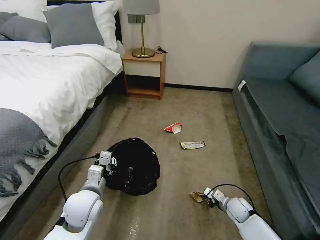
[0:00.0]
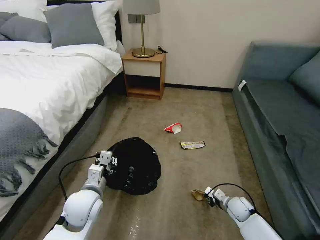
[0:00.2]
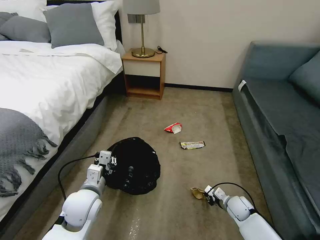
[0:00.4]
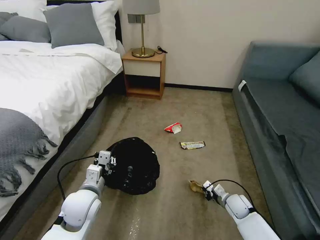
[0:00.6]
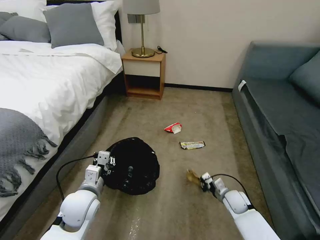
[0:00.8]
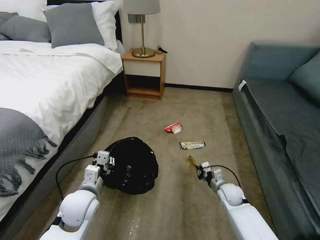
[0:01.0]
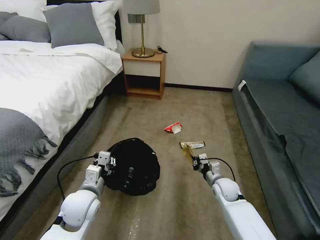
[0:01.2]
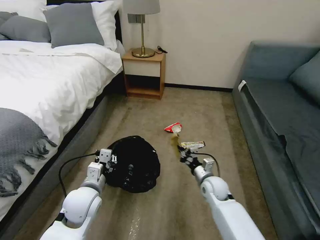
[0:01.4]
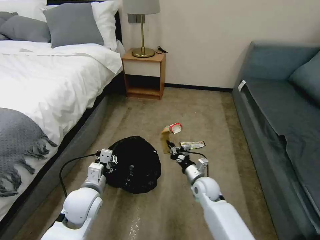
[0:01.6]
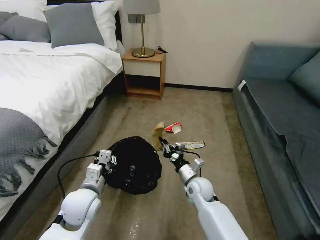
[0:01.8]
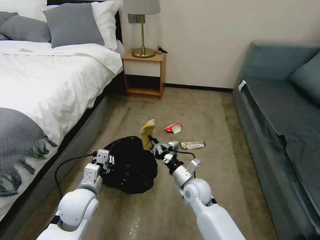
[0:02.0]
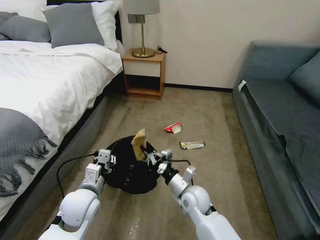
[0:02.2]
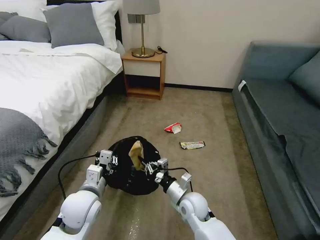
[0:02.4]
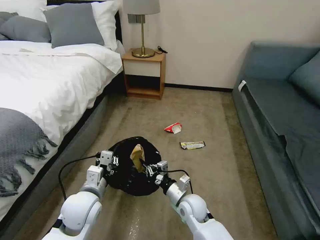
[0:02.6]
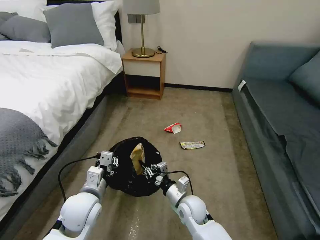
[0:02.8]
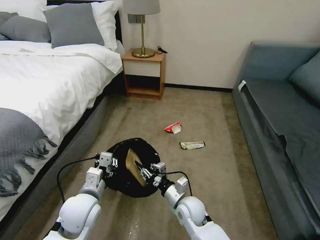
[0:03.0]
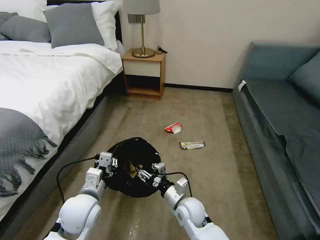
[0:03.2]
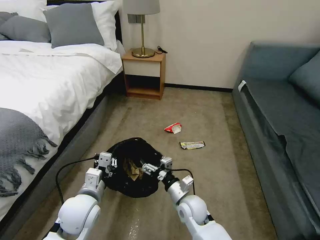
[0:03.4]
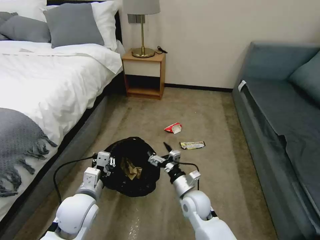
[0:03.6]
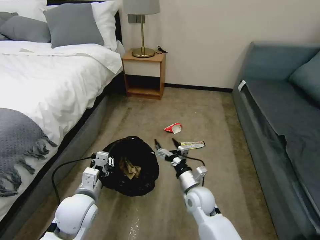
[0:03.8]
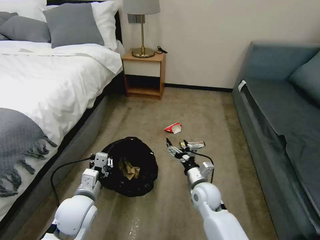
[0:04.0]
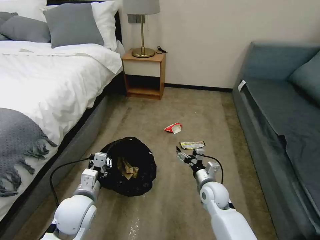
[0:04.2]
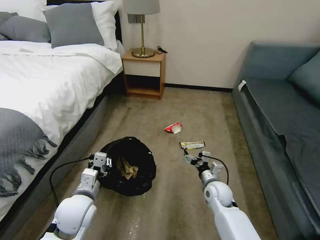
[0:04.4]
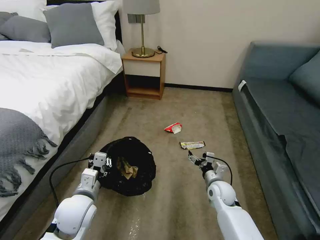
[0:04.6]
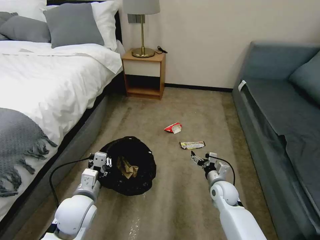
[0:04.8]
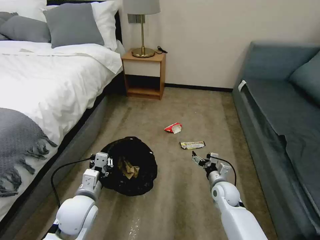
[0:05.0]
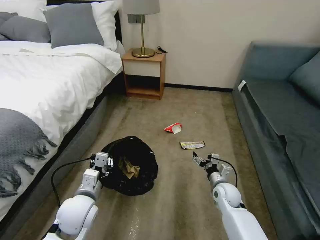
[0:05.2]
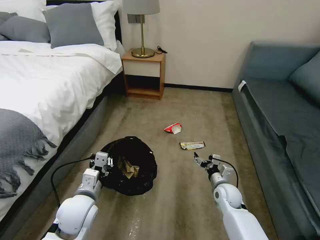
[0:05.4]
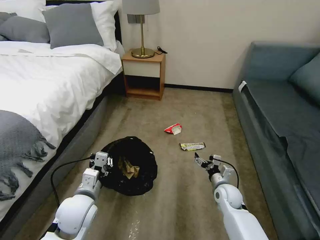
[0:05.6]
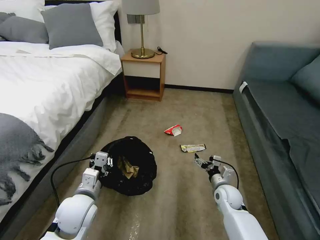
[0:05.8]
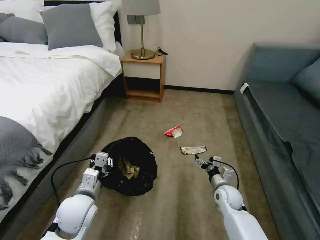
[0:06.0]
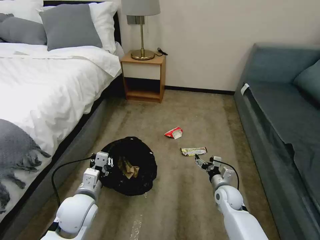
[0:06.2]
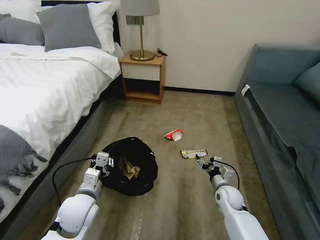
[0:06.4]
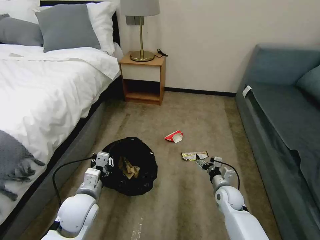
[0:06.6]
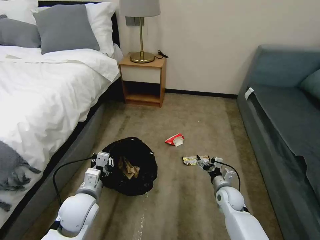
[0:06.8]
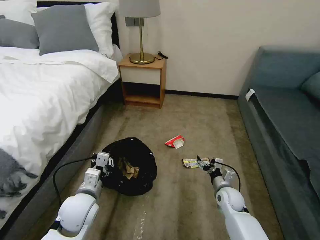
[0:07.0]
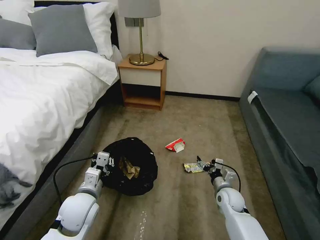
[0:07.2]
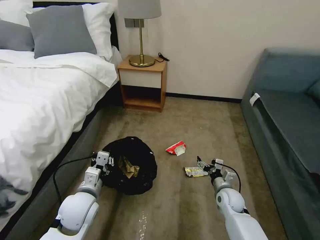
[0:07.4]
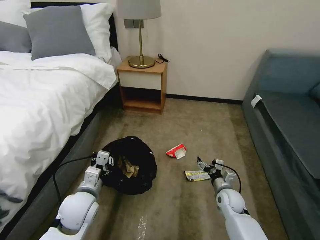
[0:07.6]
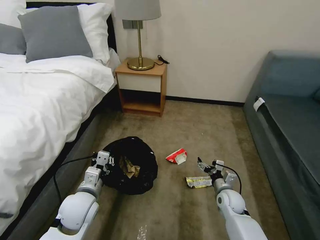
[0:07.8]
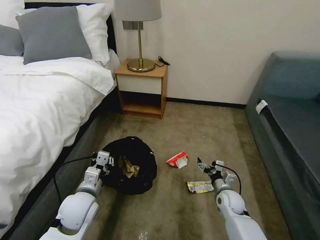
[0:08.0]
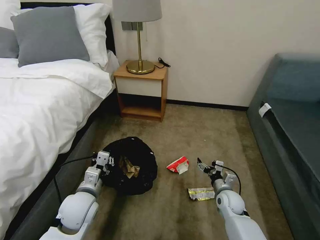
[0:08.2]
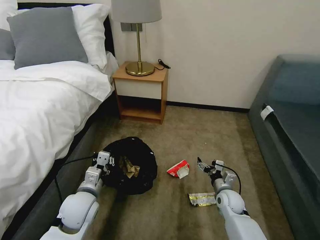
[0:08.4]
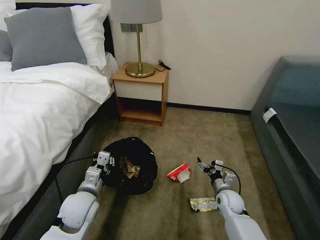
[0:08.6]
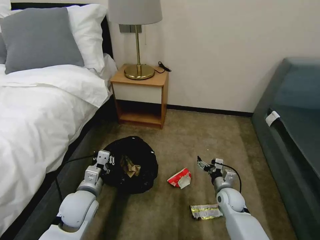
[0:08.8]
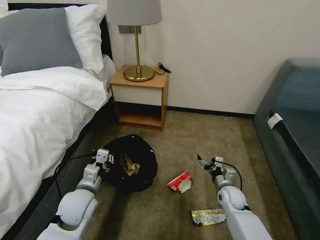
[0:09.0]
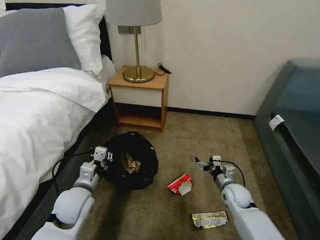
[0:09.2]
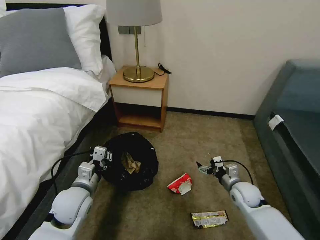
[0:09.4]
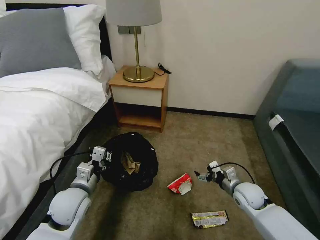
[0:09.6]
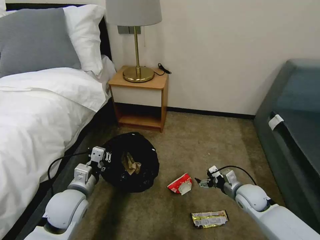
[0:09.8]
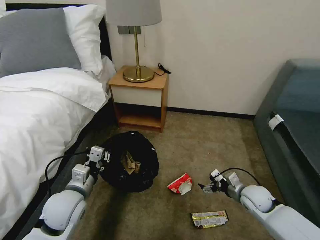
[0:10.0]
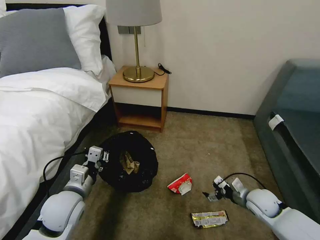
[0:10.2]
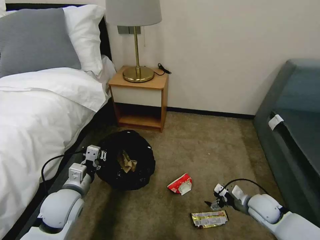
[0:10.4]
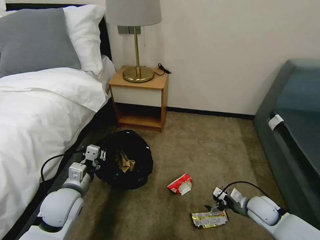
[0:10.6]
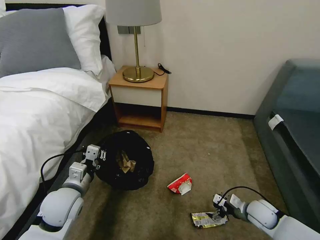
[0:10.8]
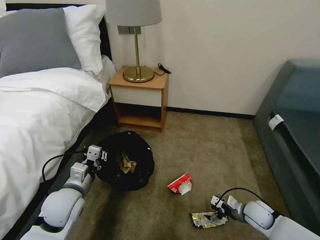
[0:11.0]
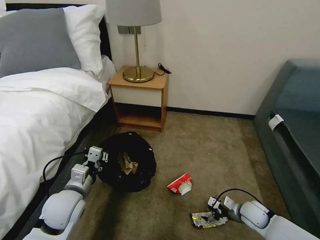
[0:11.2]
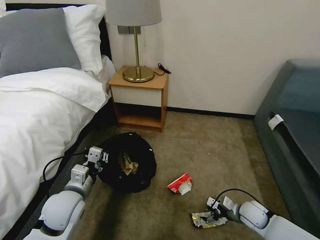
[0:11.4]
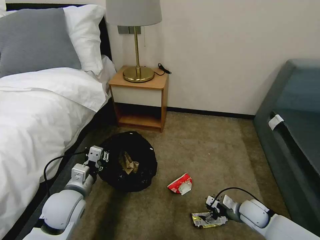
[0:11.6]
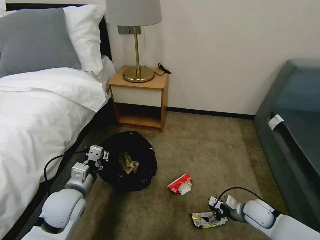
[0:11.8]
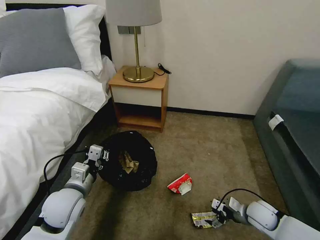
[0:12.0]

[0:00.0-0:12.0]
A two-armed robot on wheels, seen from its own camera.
Task of the whole recording: Pick up the trash bin, then pick up the garbage on the floor and place it into the trash bin.
0:00.0 to 0:01.6: The right gripper shifts roughly 20 cm to the left and upward.
0:01.6 to 0:03.0: The right gripper moves backward and to the left, about 10 cm, and opens its fingers.
0:03.0 to 0:04.4: The right gripper is displaced to the right and forward by about 15 cm, and opens its fingers.
0:04.4 to 0:06.0: The right gripper moves to the right, approximately 5 cm.
0:09.0 to 0:10.4: The right gripper moves to the right and backward, some 10 cm.
0:10.4 to 0:12.0: There are only small adjustments of the grippers.

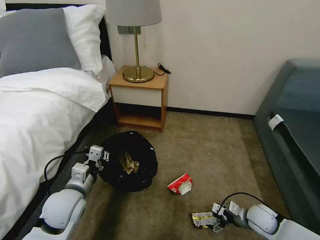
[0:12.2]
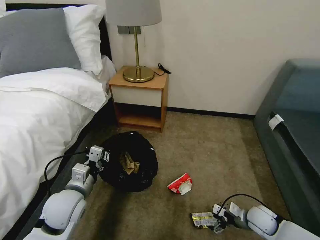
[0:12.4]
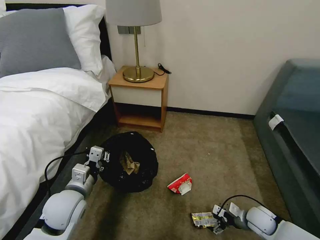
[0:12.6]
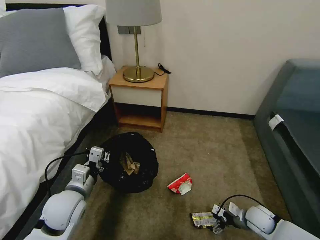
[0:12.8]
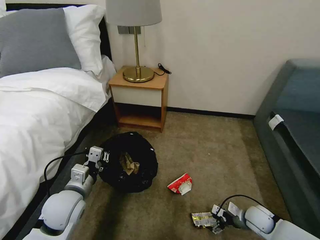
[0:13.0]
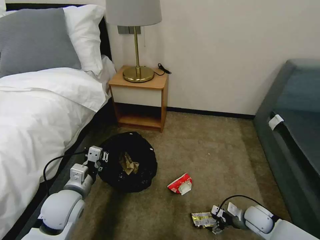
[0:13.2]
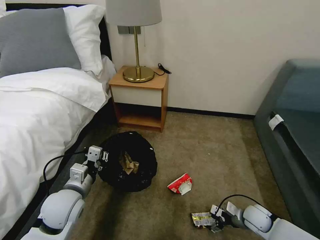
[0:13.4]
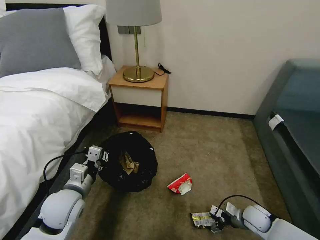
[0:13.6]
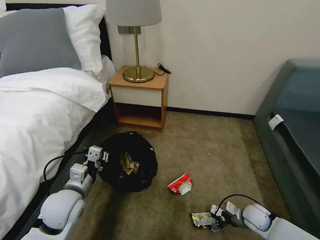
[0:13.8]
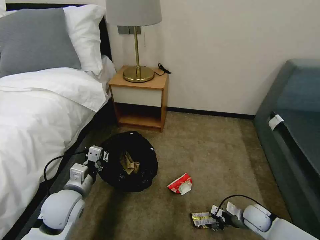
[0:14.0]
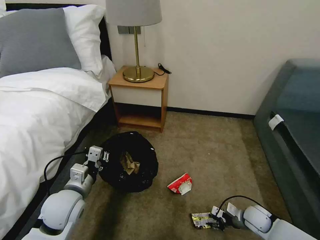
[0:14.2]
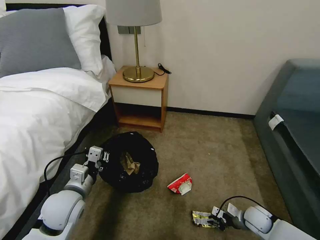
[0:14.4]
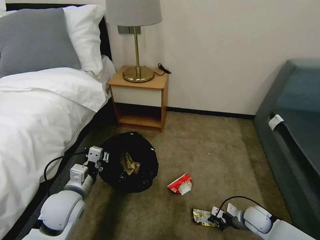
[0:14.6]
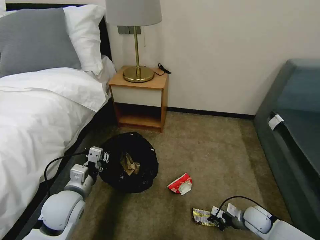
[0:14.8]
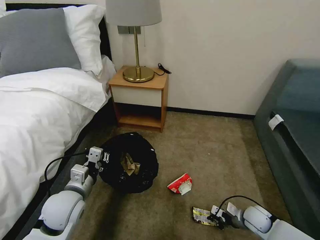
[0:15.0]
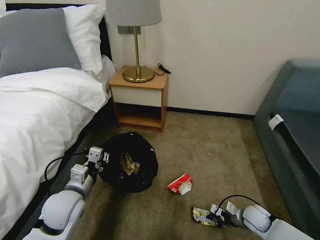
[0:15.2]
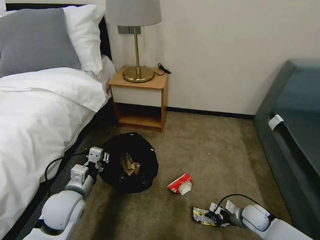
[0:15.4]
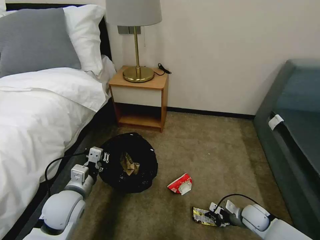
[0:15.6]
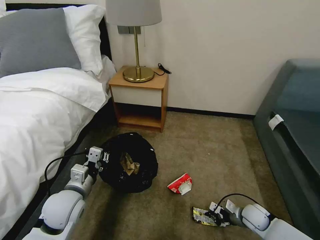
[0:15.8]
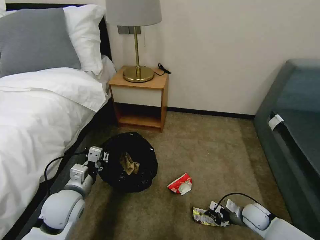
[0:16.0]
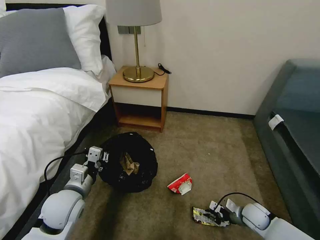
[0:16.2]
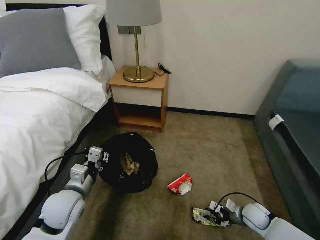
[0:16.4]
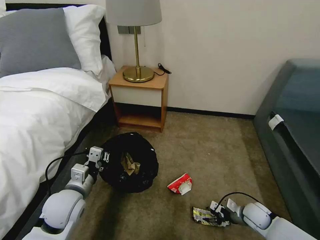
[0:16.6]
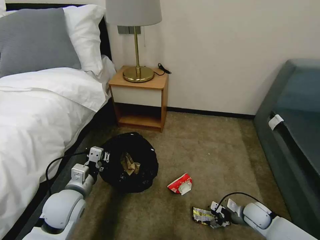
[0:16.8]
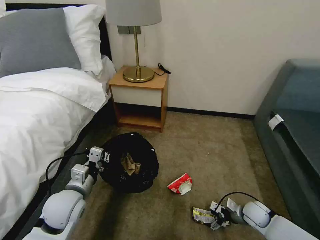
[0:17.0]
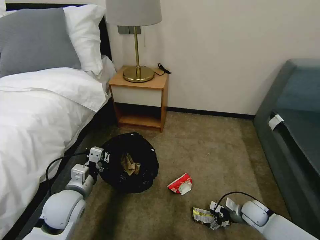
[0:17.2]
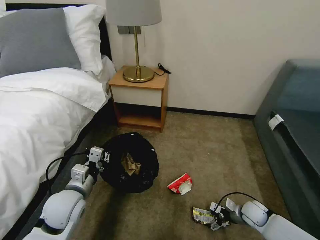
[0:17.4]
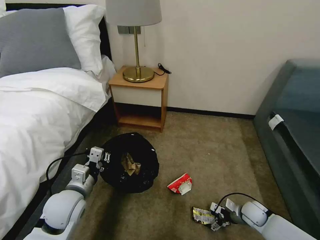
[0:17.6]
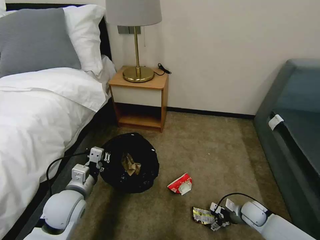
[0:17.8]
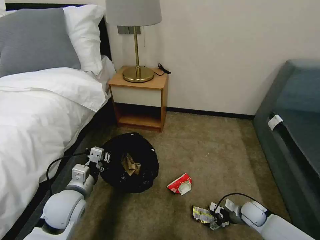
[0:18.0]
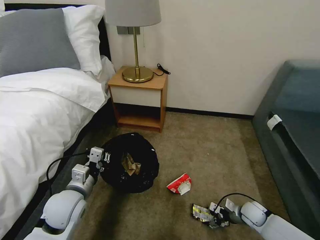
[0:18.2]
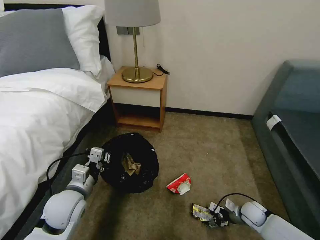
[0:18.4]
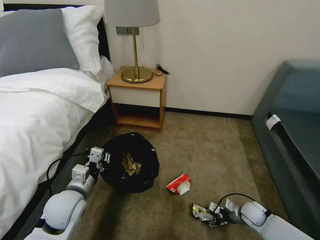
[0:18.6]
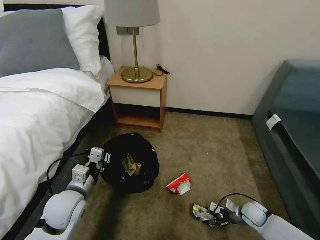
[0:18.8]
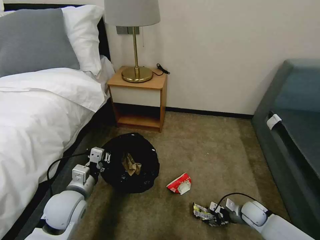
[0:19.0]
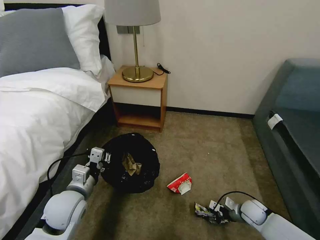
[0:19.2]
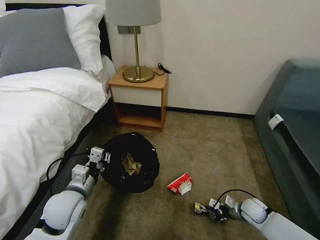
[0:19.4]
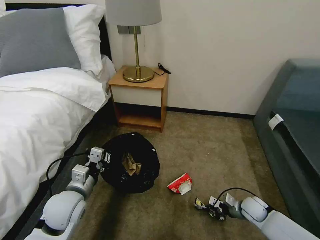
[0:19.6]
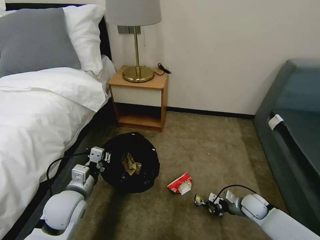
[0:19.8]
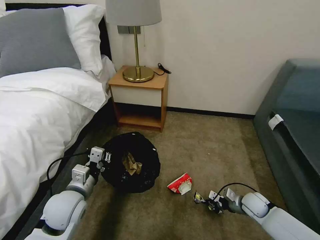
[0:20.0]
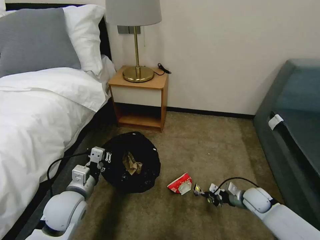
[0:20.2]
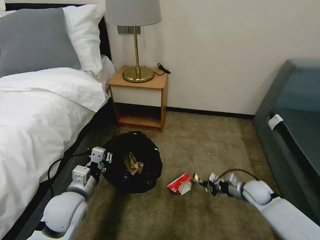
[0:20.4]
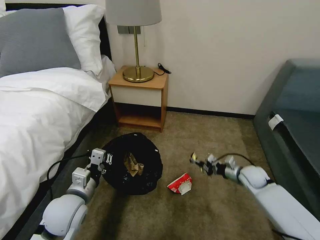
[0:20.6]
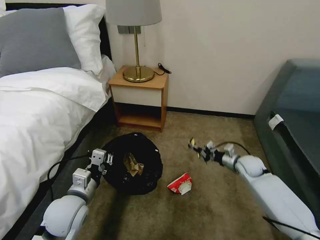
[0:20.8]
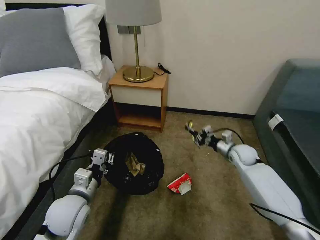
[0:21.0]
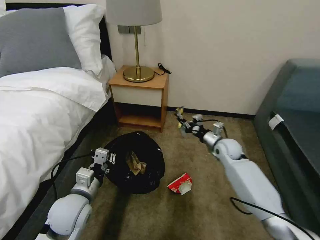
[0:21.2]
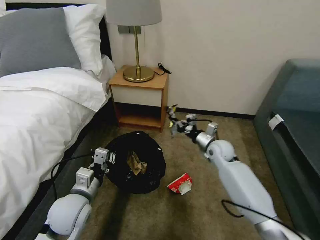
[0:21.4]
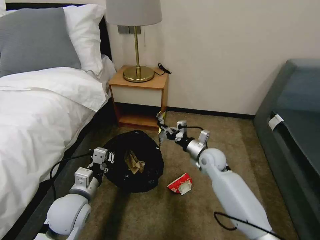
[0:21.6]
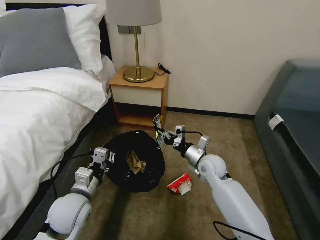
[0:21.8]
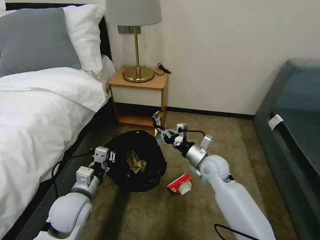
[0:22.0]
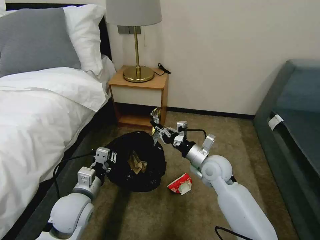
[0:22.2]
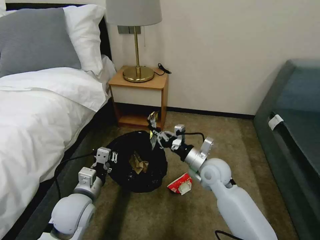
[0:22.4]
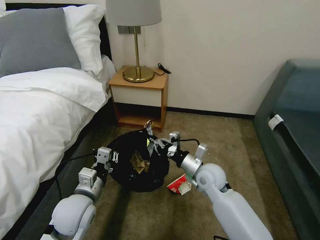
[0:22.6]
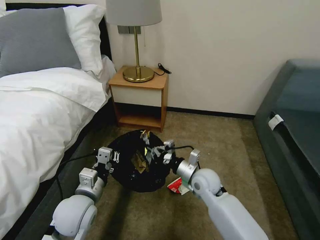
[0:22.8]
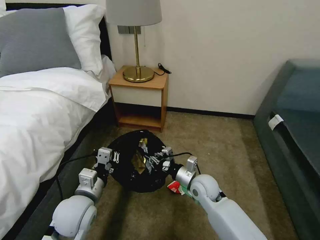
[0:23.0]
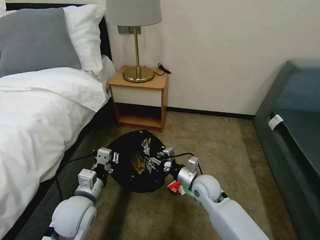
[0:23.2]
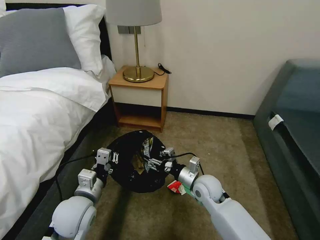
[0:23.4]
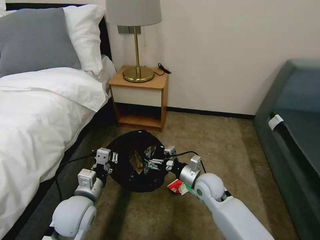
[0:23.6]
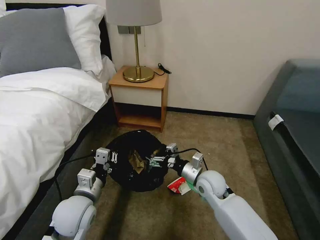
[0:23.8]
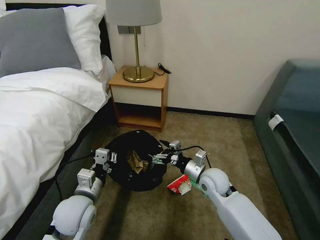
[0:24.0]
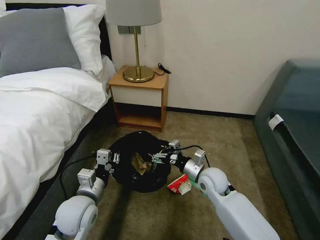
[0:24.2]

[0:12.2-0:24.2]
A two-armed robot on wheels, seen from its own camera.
Task of the whole recording: Pick up the trash bin, then pick up the garbage on the floor and place it into the trash bin.
0:12.2 to 0:13.8: The grippers make only small movements.
0:13.8 to 0:15.2: The right gripper closes.
0:15.2 to 0:16.6: The right gripper opens.
0:16.6 to 0:18.2: The grippers move only a little.
0:18.2 to 0:19.8: The right gripper closes.
0:19.8 to 0:21.2: The right gripper shifts approximately 25 cm forward, upward and to the left.
0:21.2 to 0:22.6: The right gripper moves backward and to the left, some 15 cm.
0:22.6 to 0:24.2: The right gripper opens its fingers.
